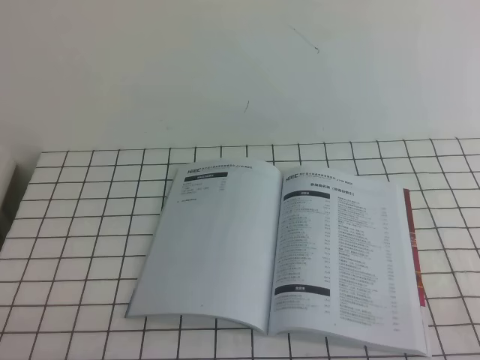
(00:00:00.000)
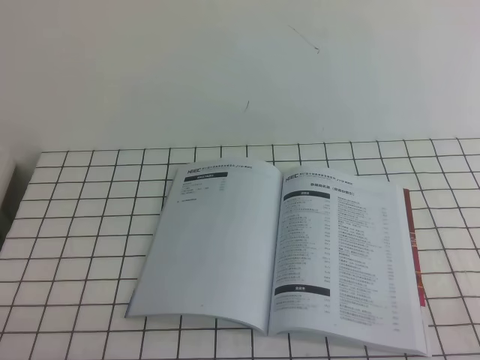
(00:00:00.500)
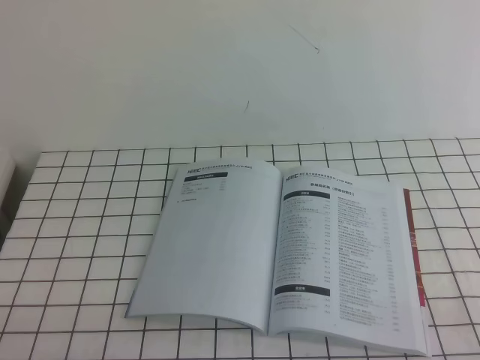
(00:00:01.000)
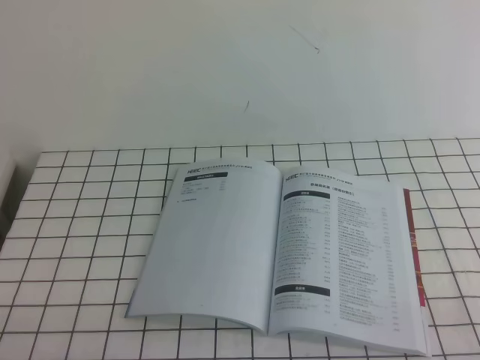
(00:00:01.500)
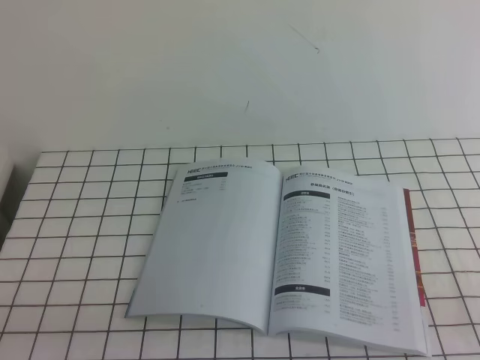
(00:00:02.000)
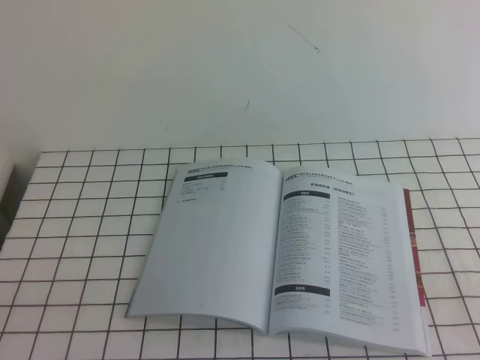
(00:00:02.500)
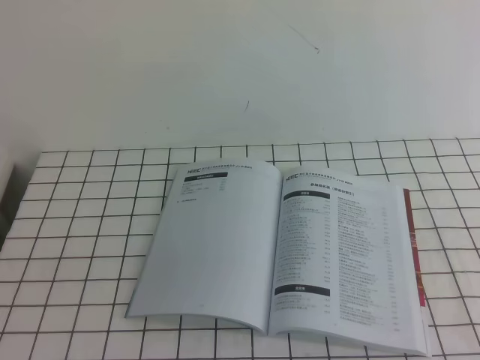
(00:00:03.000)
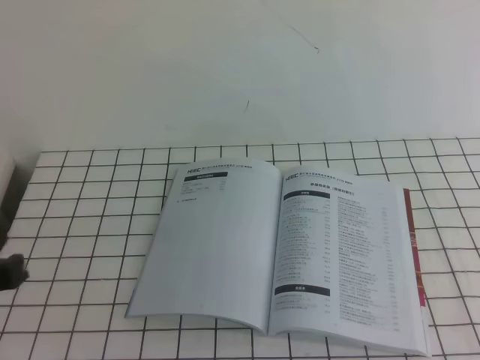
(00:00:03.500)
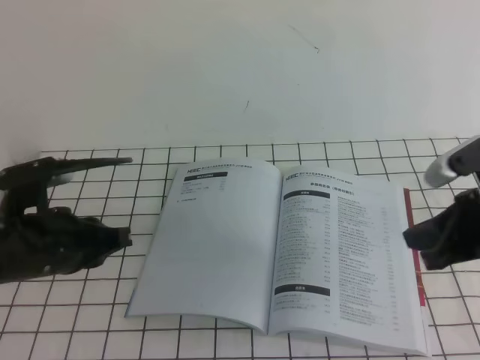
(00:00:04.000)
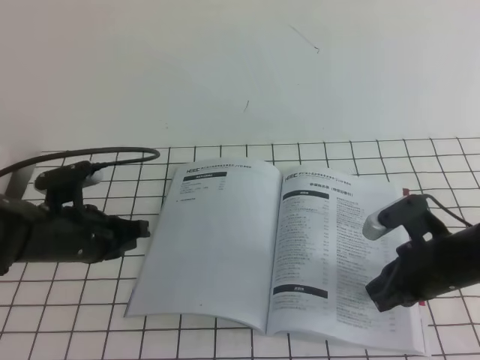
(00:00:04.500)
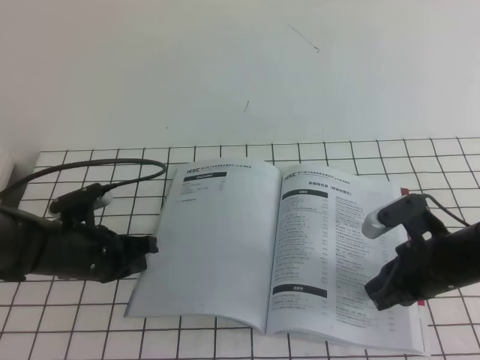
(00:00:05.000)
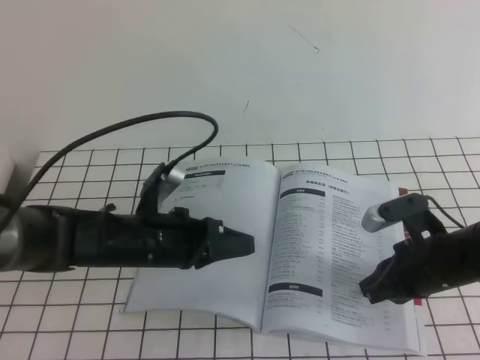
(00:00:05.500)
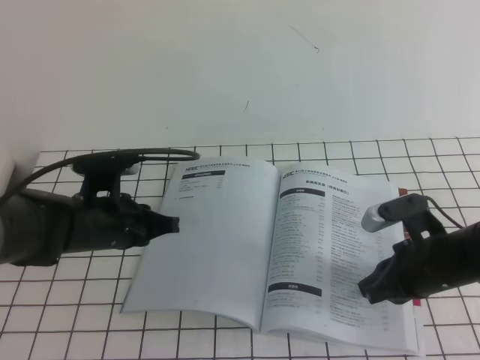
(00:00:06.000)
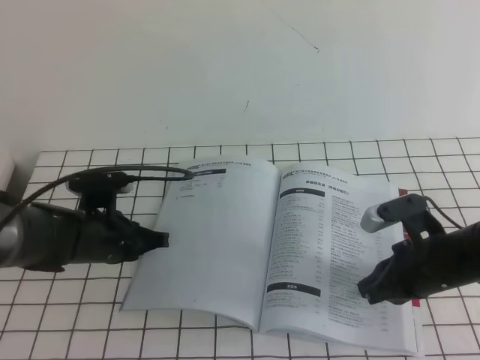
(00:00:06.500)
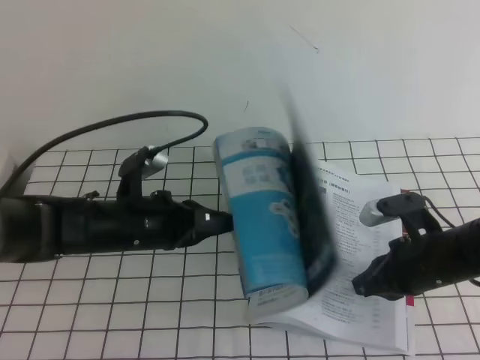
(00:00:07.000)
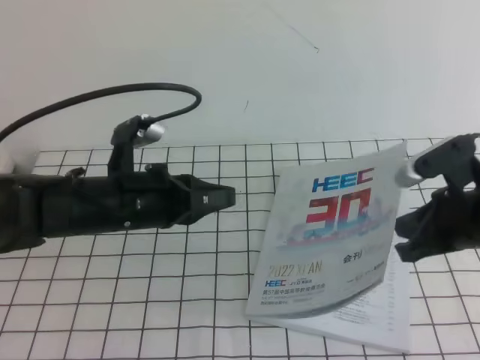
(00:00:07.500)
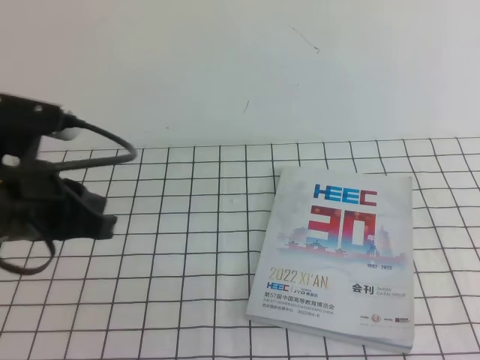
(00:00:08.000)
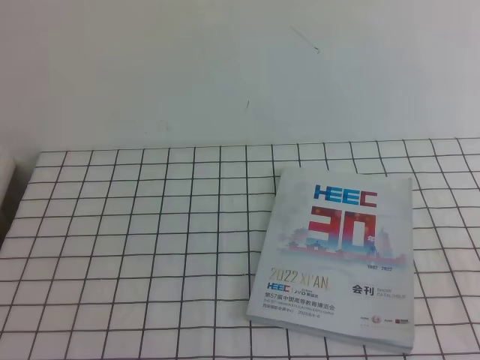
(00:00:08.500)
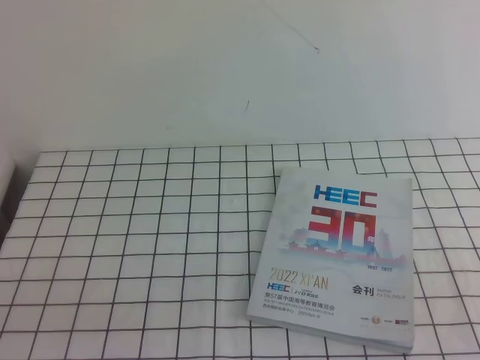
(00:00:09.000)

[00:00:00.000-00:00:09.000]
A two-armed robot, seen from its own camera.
Task of the whole recording: on the white tablecloth, hold the book with one hand and close it with the other.
00:00:02.000 to 00:00:04.500: The right gripper moves forward and to the left, about 25 cm. Meanwhile the left gripper shifts approximately 25 cm forward.
00:00:04.500 to 00:00:07.000: The left gripper moves left and right over roughly 5 cm, changing direction 2 times.
00:00:07.000 to 00:00:09.000: The left gripper is displaced backward and to the left by about 30 cm. The right gripper is displaced backward, upward and to the right by roughly 30 cm.
